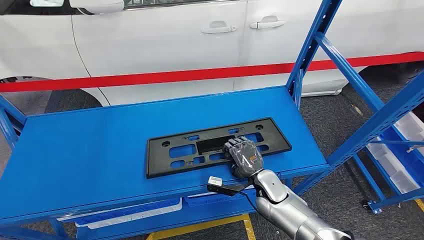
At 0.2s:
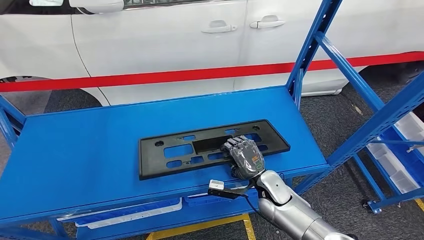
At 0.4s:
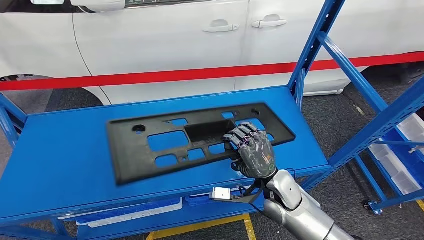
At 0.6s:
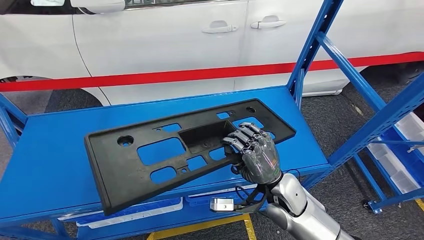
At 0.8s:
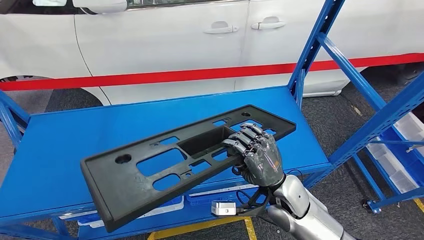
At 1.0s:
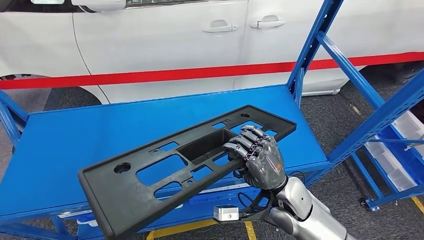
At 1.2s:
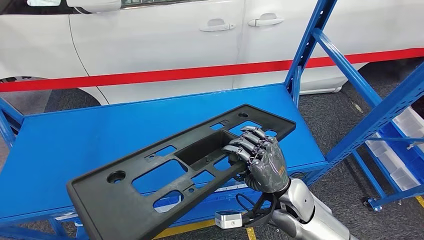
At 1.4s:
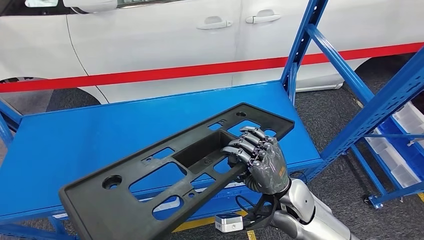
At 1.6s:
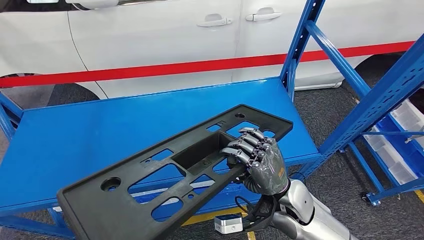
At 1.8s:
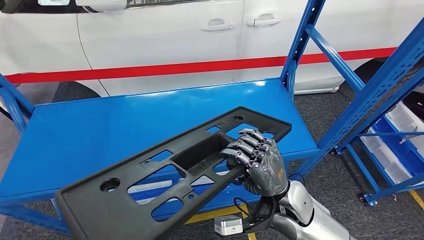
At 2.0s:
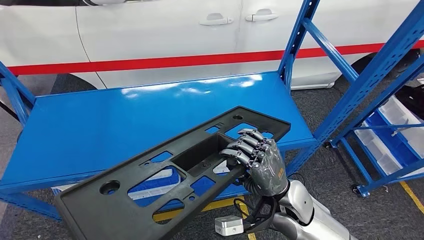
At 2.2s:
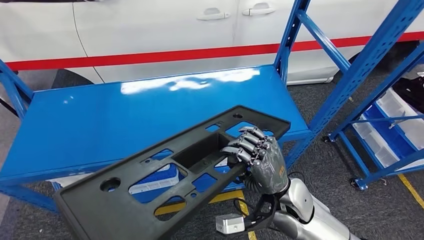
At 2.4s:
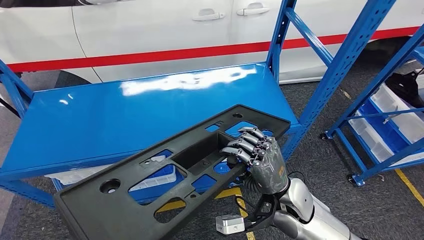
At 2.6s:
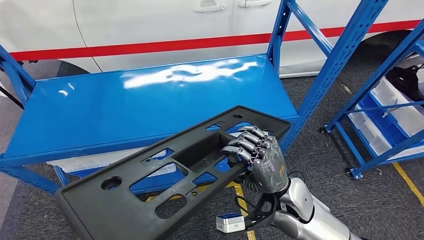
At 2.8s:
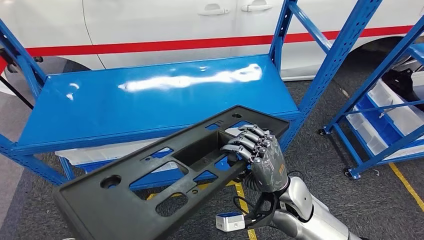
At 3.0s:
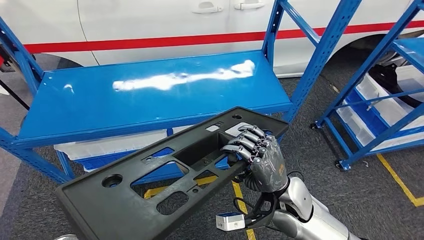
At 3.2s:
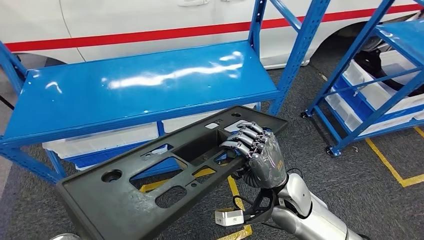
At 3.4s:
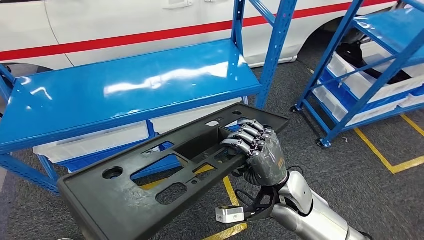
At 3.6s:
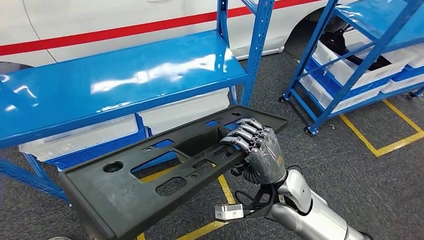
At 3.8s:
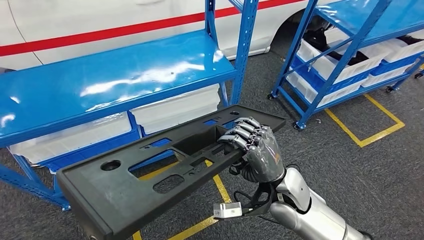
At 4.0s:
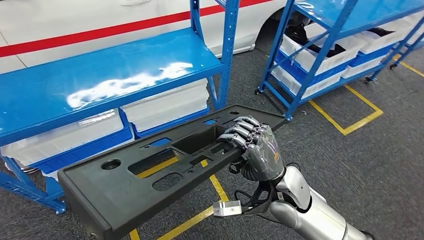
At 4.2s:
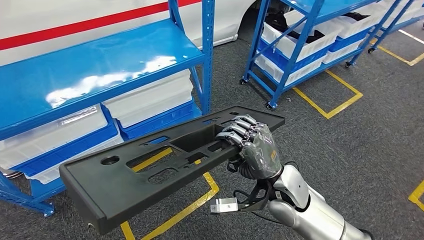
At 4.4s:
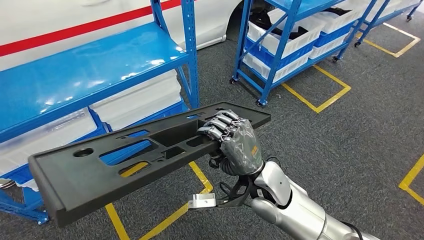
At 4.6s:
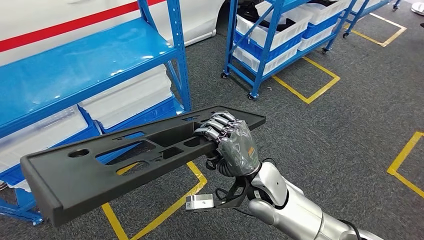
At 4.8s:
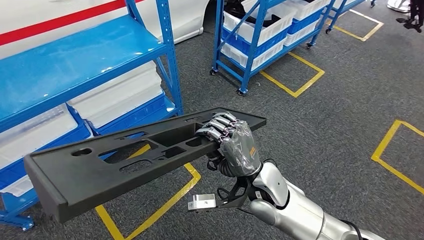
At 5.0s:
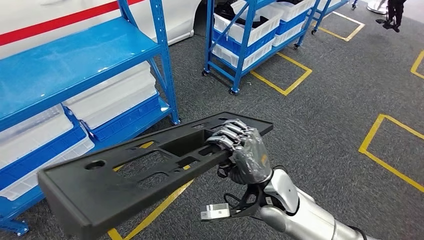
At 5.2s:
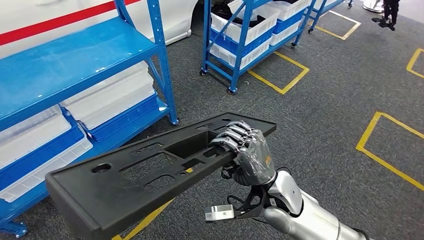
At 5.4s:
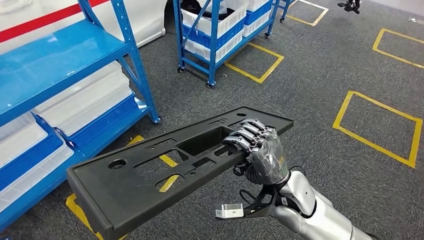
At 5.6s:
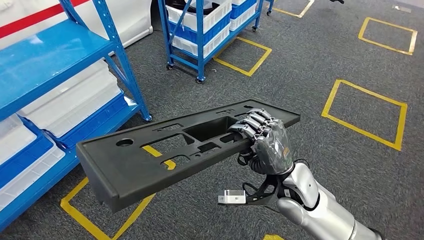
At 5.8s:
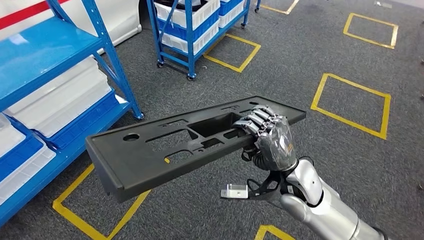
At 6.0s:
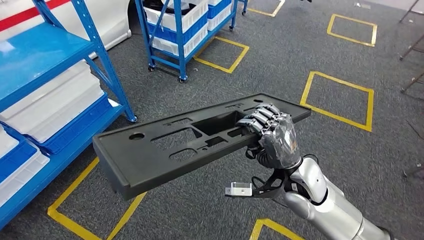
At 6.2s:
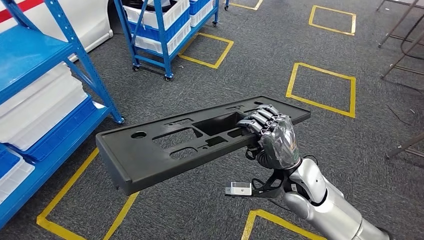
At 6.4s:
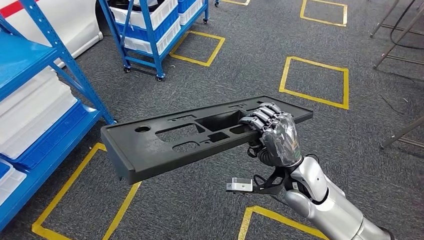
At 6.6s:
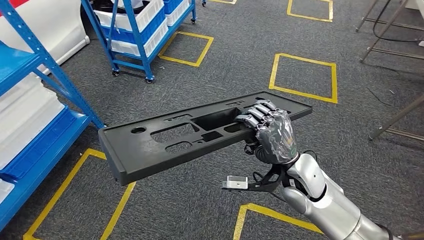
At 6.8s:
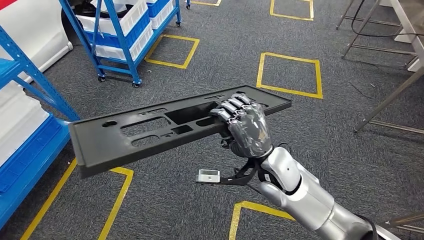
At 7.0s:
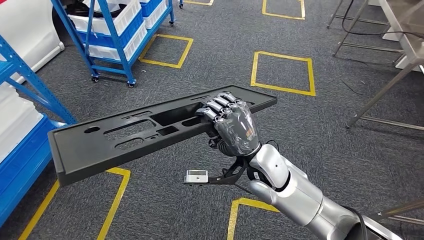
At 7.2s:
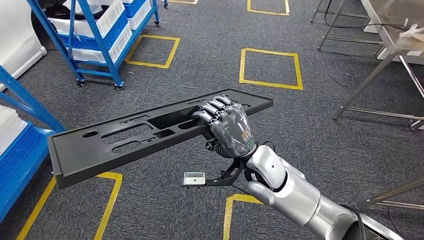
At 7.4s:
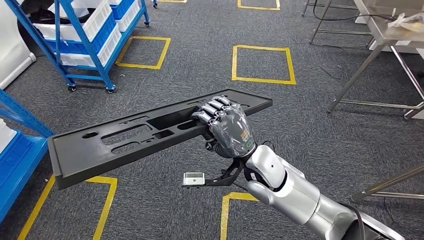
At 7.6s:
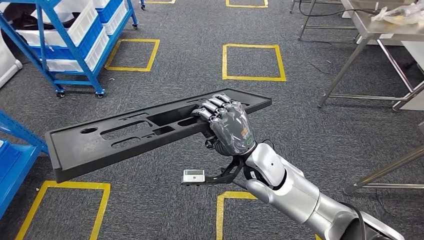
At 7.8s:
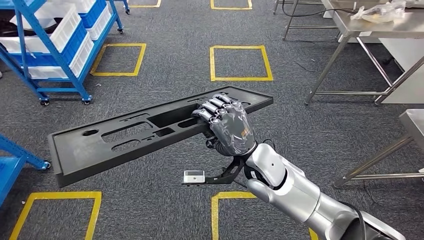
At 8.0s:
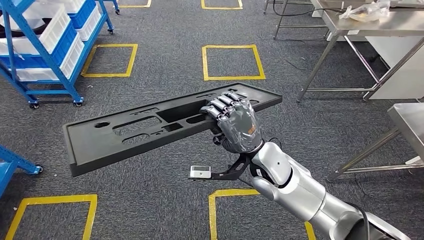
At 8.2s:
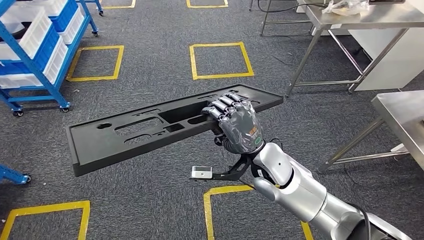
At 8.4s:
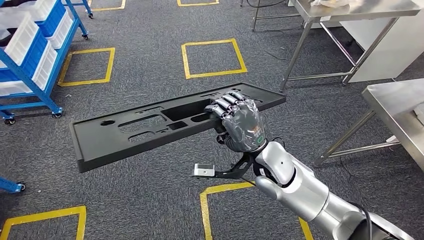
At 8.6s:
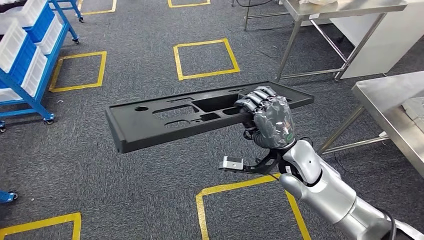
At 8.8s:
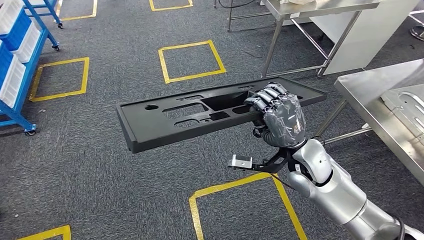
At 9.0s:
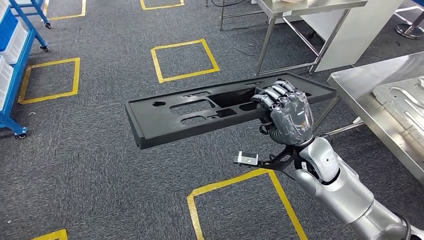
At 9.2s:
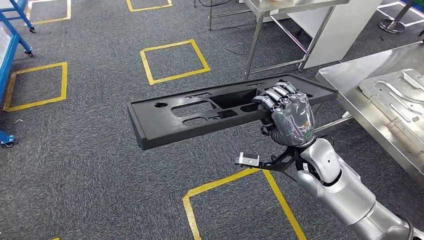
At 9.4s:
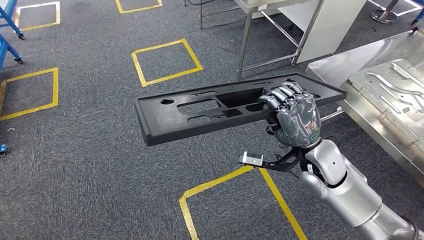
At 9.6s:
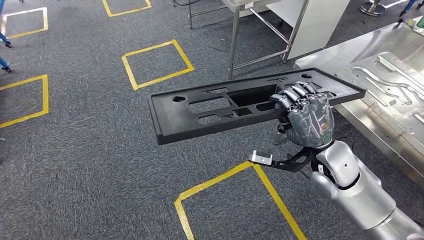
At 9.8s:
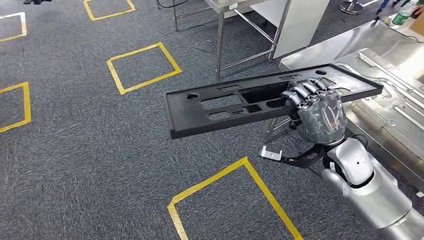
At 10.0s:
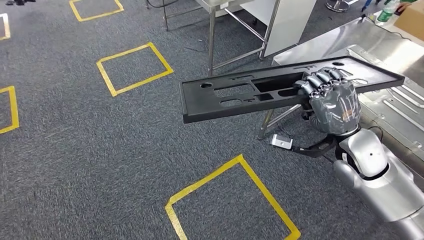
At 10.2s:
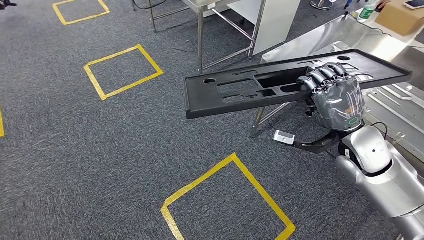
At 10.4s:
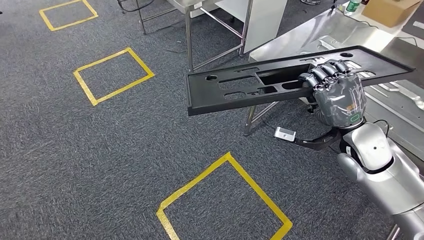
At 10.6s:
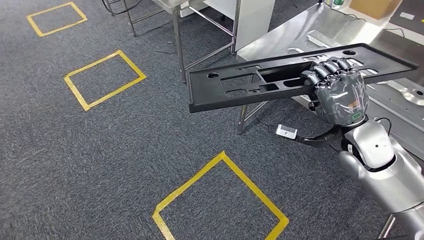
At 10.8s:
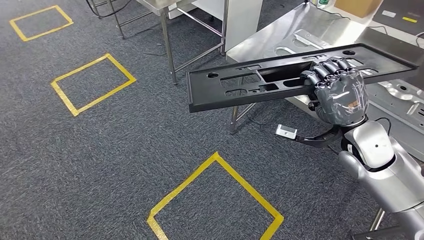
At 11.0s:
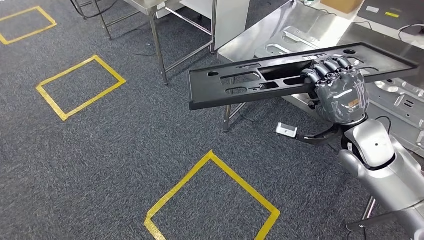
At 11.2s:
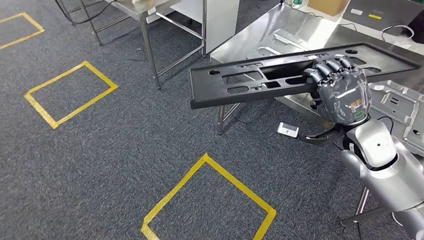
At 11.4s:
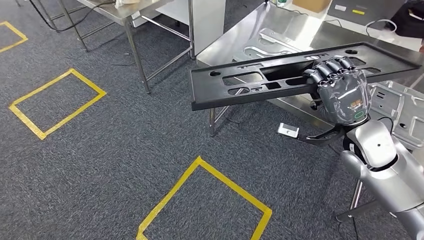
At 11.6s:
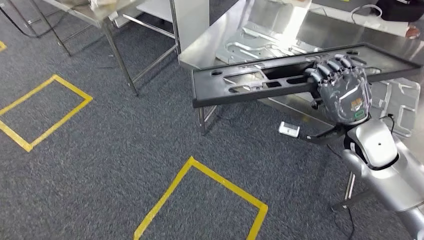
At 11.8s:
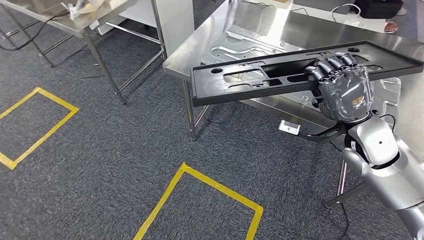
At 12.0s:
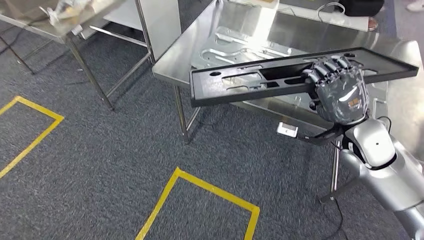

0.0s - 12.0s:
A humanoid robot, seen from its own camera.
Step, 0.0s - 3.8s: Pick up the large material from the shelf.

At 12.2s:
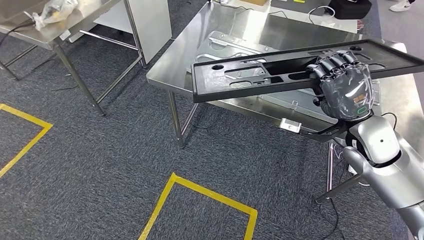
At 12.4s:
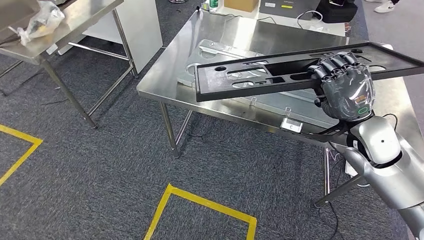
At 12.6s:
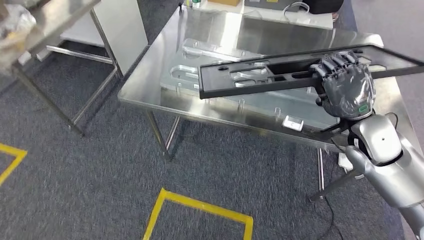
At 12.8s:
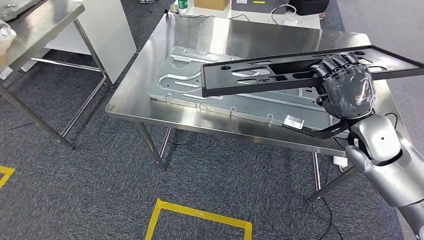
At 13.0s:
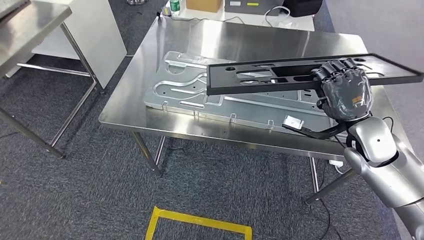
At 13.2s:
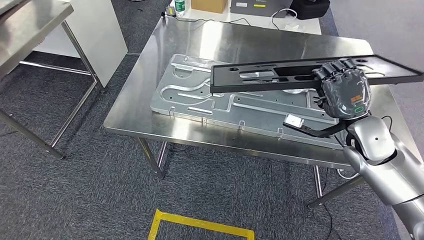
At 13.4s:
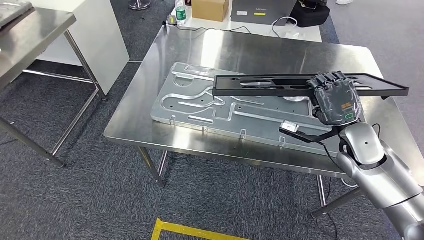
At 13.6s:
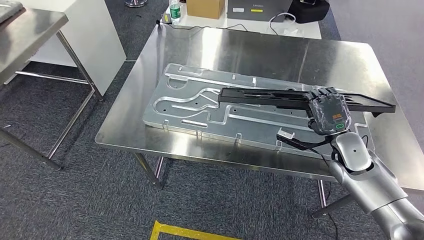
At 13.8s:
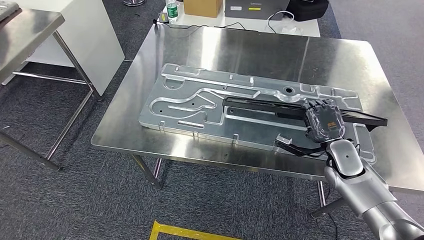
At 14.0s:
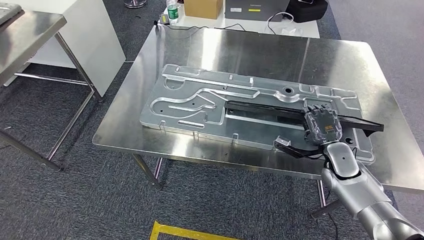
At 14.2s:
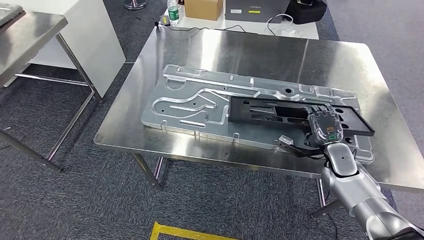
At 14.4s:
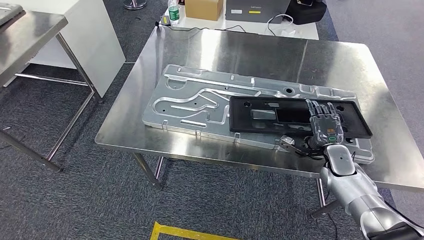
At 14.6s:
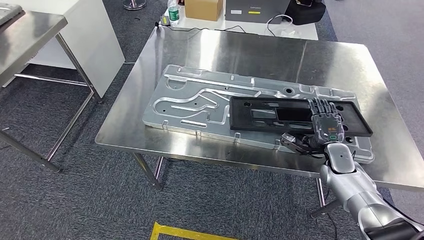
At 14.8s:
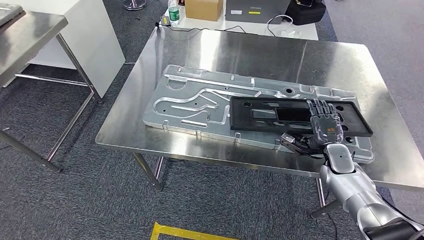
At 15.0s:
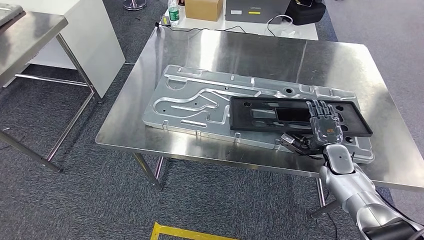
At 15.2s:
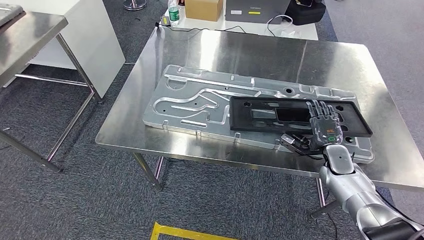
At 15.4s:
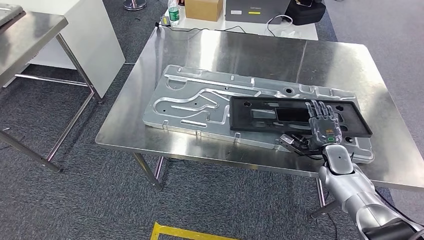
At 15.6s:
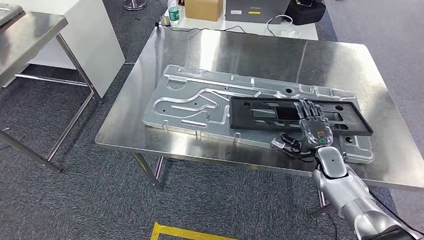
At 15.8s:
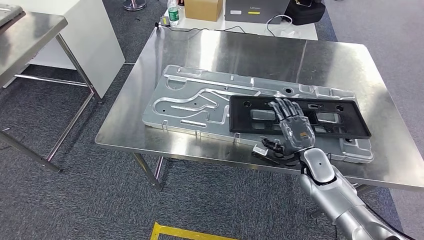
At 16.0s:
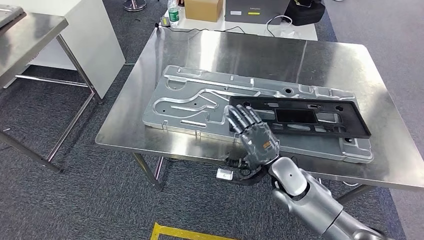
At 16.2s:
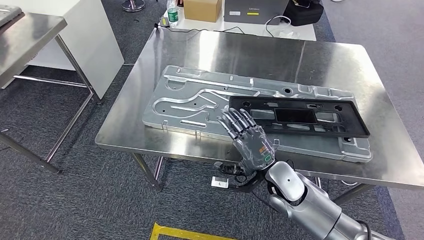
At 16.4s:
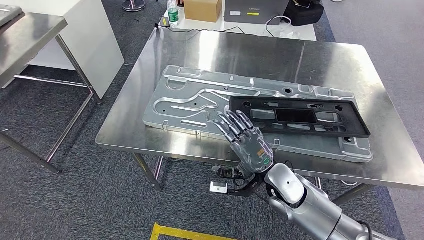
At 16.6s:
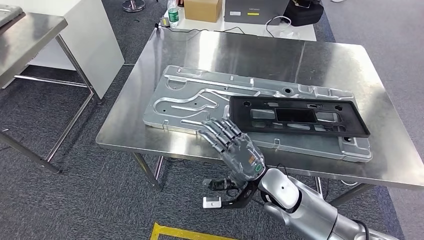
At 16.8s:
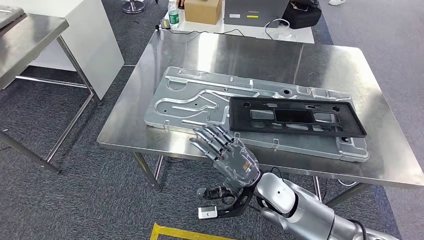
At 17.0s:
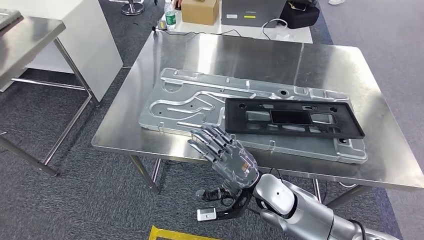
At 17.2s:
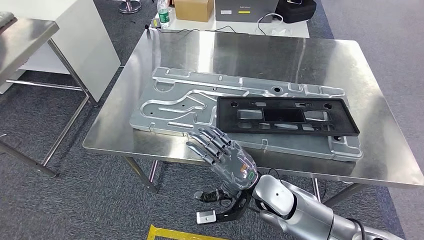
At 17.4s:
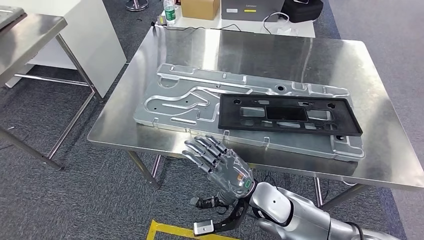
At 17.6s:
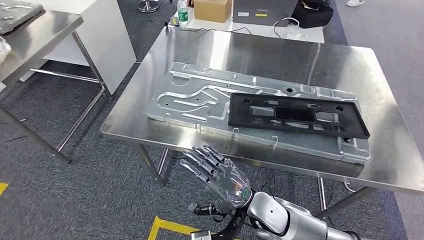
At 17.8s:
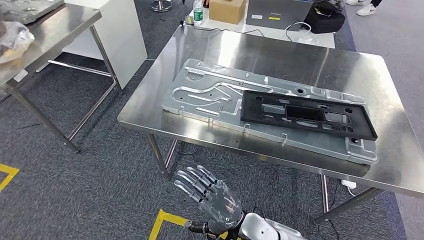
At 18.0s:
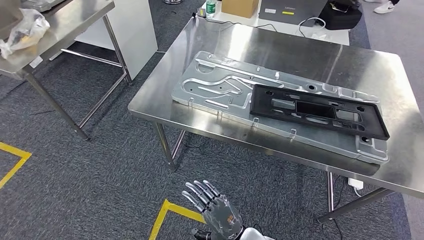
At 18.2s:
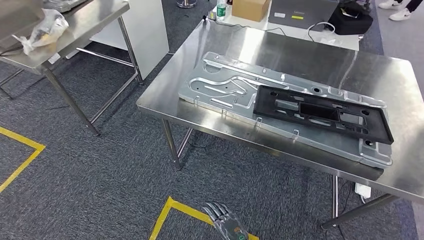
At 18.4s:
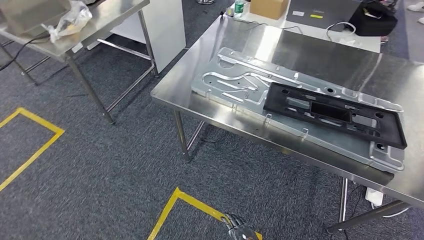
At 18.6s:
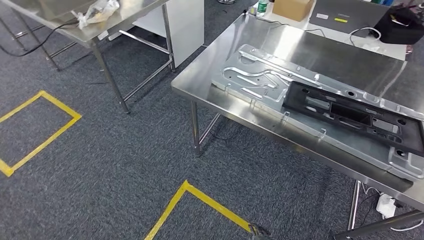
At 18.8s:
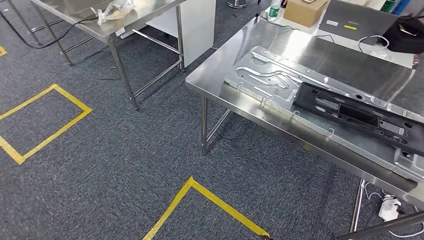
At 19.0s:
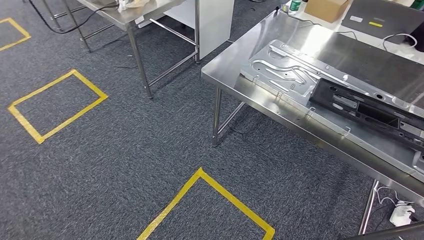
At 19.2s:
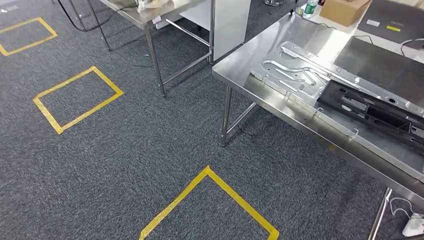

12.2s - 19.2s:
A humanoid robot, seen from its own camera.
Step, 14.0s - 17.4s: Insert the large material into the corresponding slot on the workbench.
13.6s - 15.0s: The right hand goes approximately 10 cm downward.
15.0s - 16.4s: The right hand travels to the left by some 20 cm.
